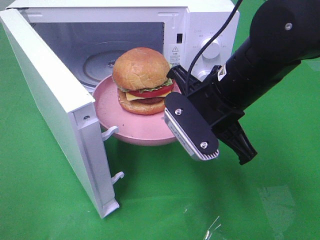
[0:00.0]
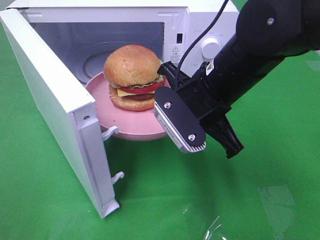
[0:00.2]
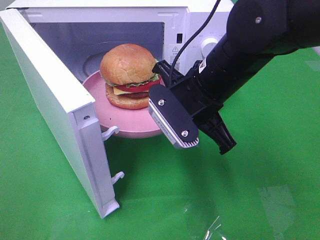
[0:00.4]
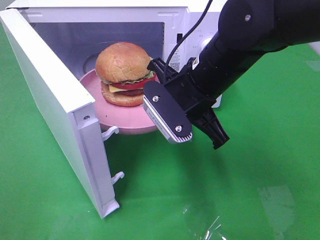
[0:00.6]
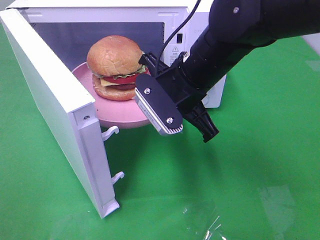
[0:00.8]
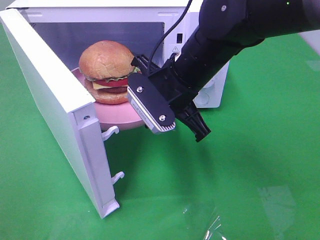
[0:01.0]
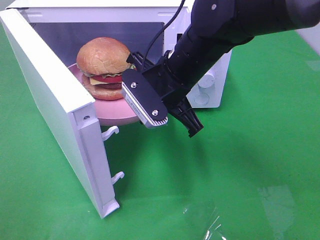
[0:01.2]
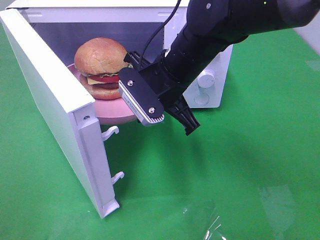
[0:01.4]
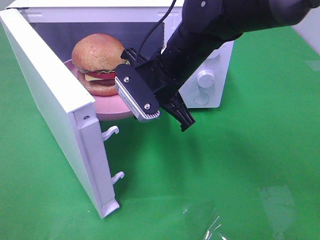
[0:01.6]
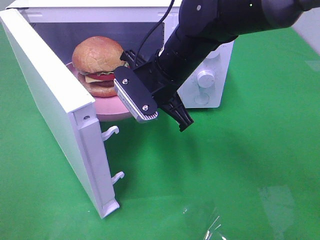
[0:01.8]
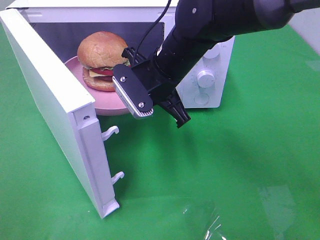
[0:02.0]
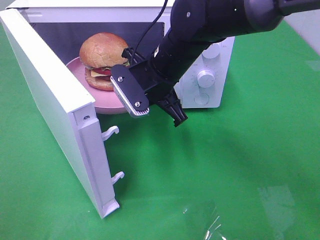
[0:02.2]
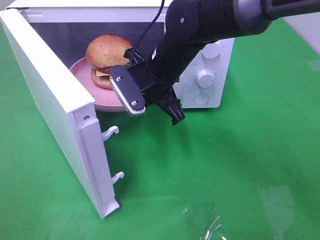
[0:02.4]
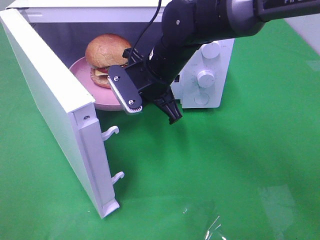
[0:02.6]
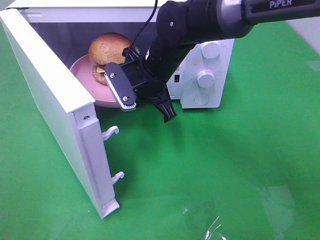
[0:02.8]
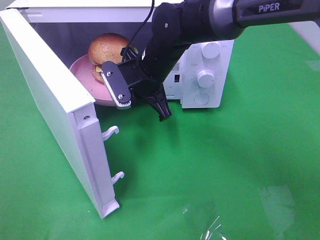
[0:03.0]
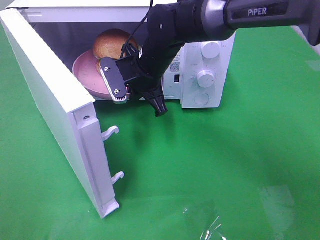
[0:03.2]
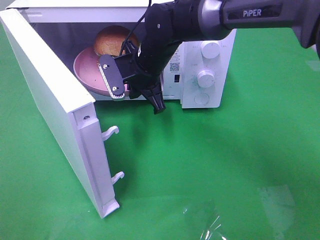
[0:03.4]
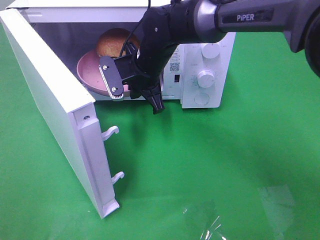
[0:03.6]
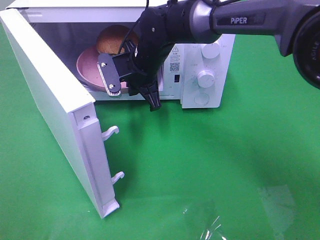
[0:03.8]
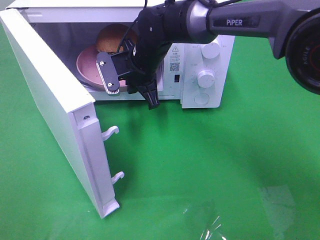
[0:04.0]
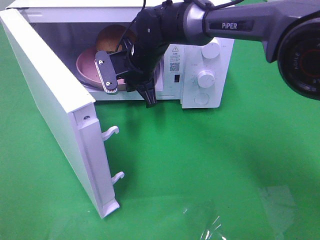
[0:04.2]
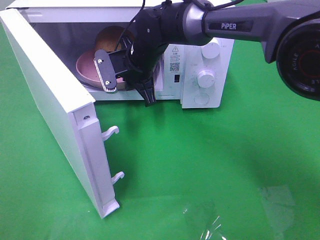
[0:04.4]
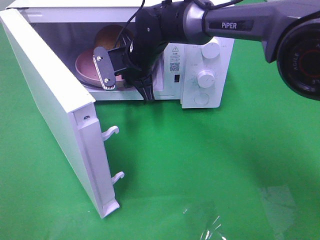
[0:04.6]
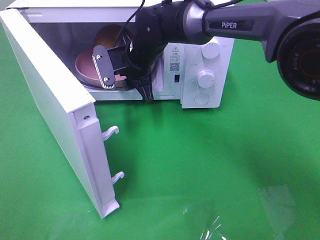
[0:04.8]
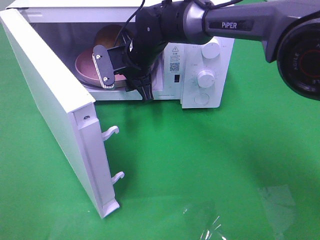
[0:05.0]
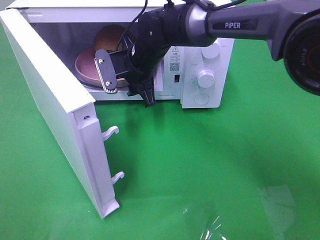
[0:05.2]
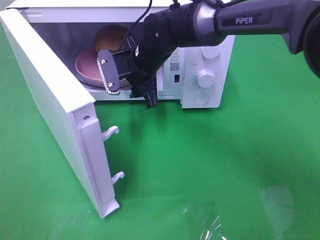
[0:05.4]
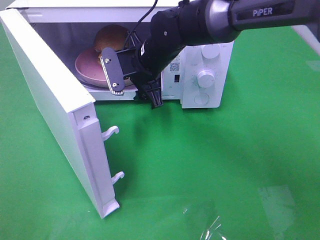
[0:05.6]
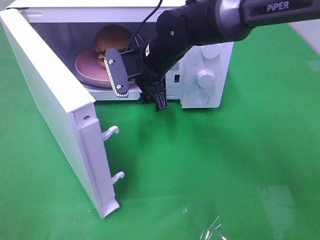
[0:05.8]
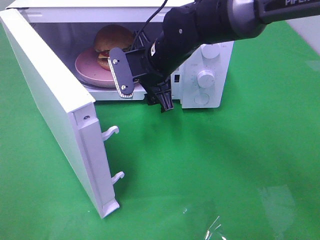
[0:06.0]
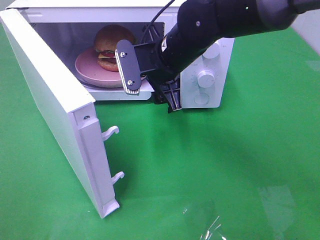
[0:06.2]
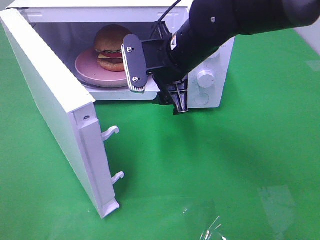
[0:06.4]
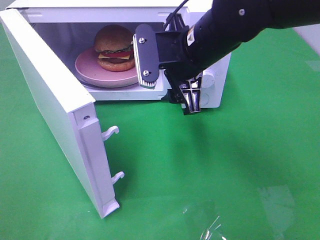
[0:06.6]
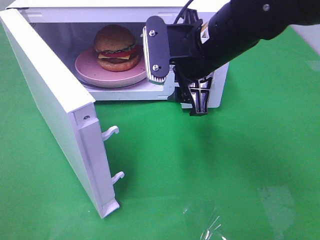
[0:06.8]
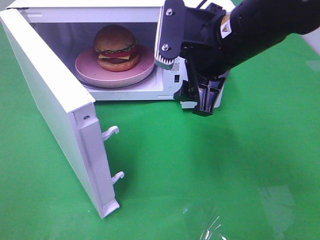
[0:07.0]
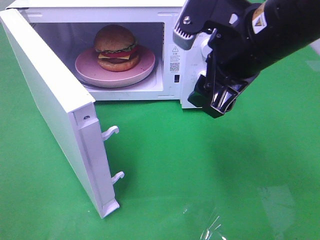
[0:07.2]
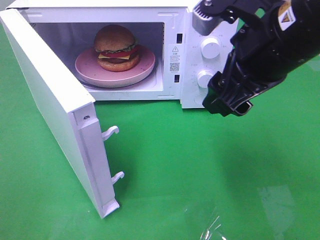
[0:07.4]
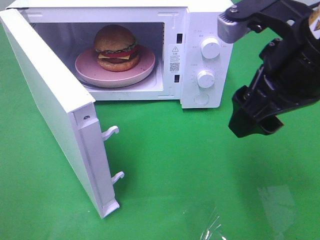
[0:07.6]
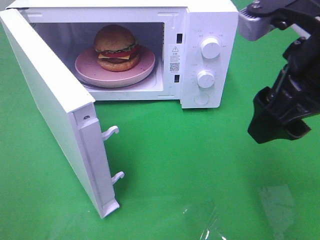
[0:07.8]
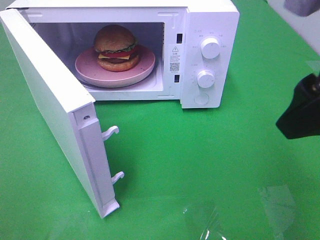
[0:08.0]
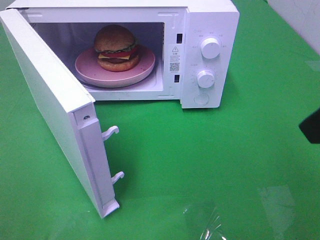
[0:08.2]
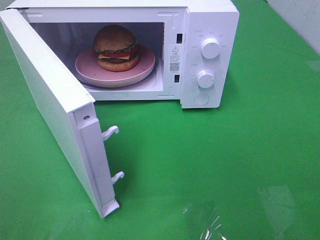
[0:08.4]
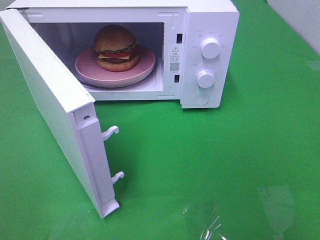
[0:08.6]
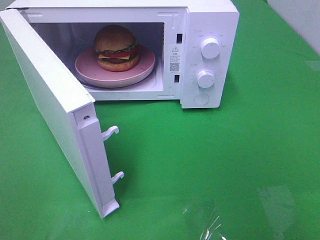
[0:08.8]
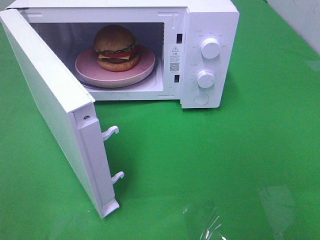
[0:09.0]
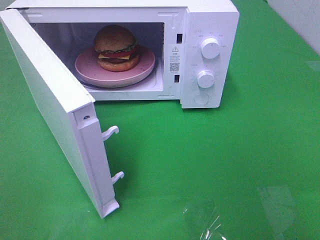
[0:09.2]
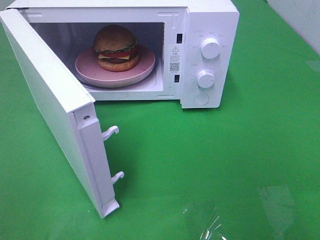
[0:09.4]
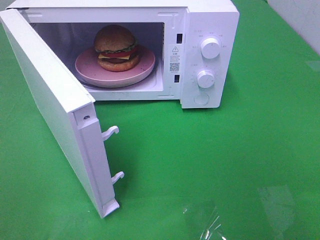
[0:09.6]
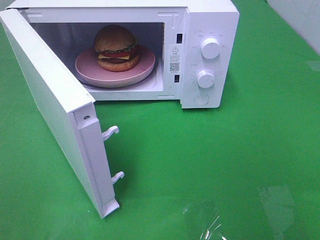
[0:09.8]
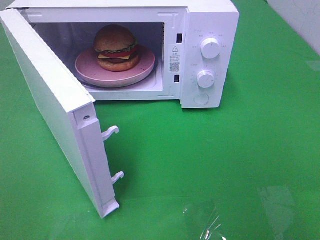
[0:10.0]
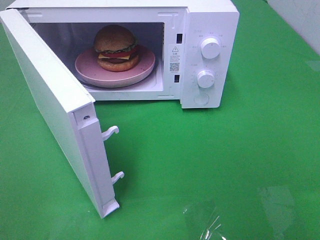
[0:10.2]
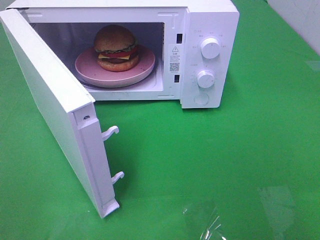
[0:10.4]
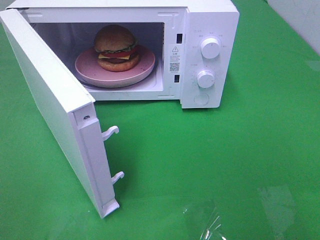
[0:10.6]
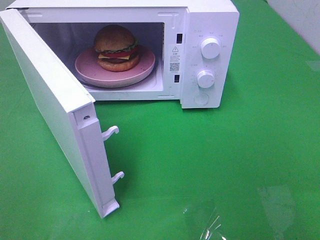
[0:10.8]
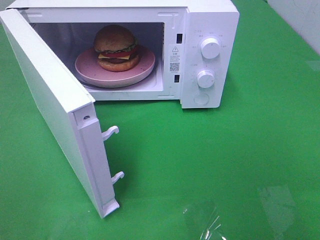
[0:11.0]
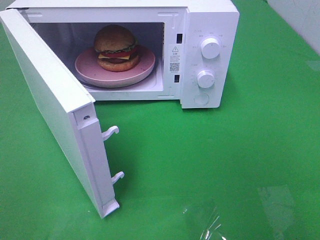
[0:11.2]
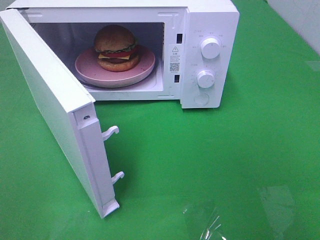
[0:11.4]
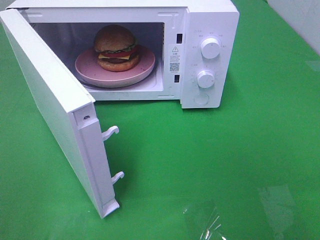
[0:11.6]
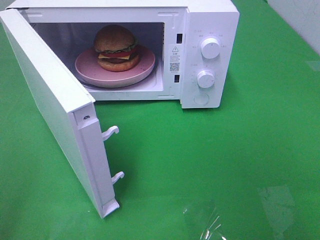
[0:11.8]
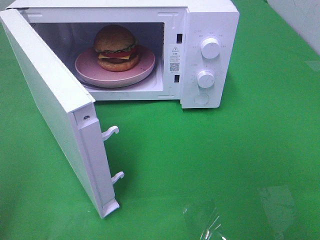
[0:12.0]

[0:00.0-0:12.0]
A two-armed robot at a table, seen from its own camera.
Task of the whole recording: Heat the burger.
Step, 0:00.0 to 0:05.2: Right hand: place the plate in the microwave.
0:00.0 to 0:01.6: The right gripper is displaced forward and to the left by some 10 cm.
0:01.6 to 0:03.0: The right gripper travels forward by some 5 cm.
0:03.0 to 0:04.4: The right gripper changes place by roughly 5 cm.
0:04.4 to 0:06.0: The right gripper travels backward by approximately 5 cm, and opens.
0:06.0 to 0:07.6: The right gripper moves backward, to the right and upward, approximately 25 cm.
0:07.6 to 0:09.0: The right gripper is displaced backward and to the right by some 25 cm.

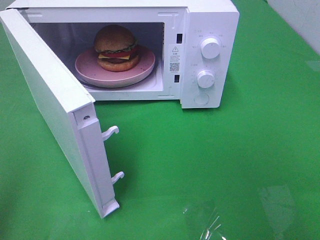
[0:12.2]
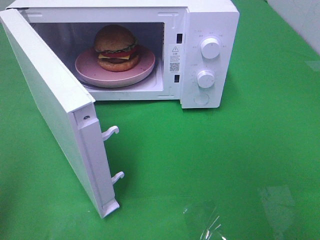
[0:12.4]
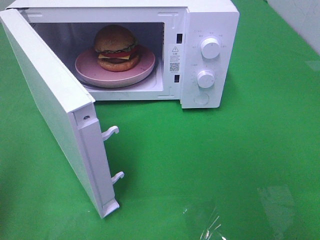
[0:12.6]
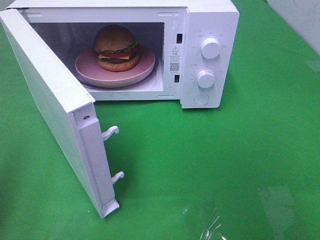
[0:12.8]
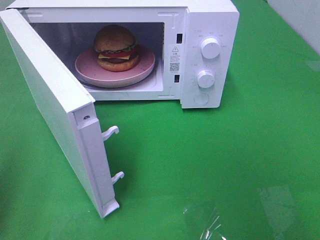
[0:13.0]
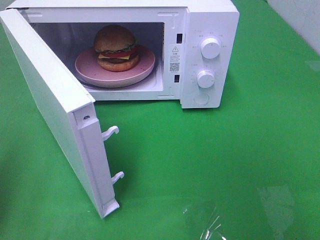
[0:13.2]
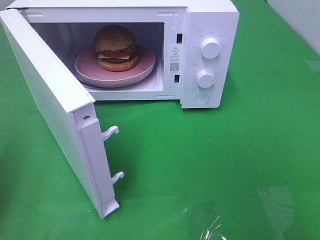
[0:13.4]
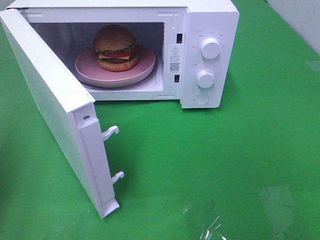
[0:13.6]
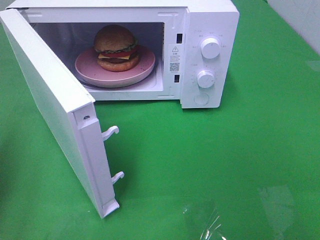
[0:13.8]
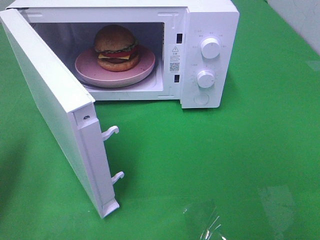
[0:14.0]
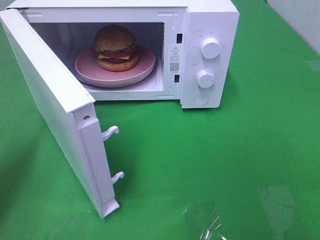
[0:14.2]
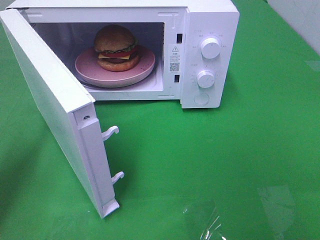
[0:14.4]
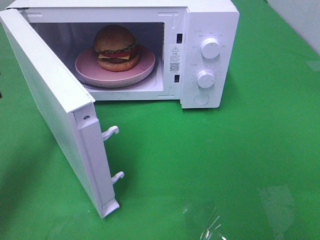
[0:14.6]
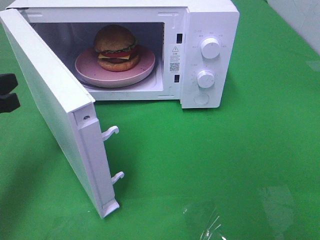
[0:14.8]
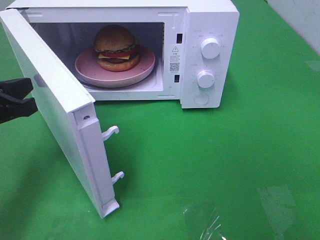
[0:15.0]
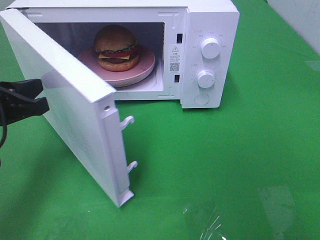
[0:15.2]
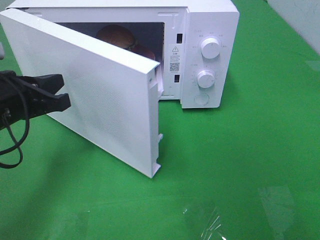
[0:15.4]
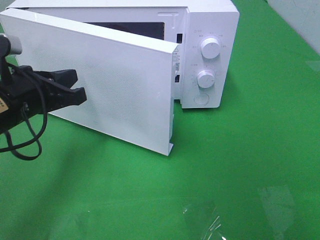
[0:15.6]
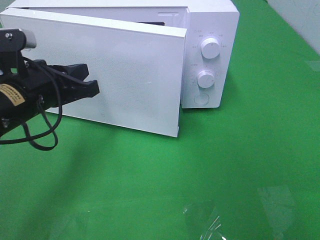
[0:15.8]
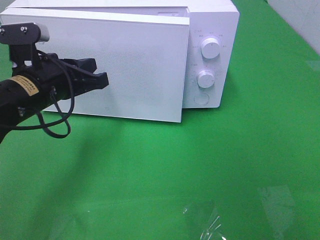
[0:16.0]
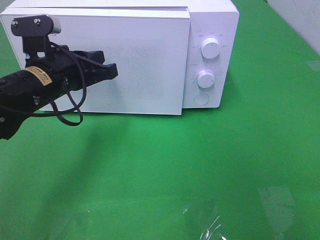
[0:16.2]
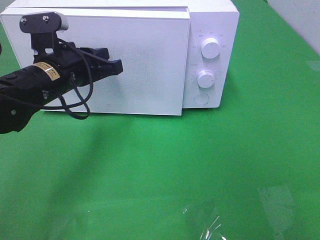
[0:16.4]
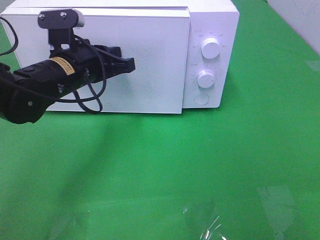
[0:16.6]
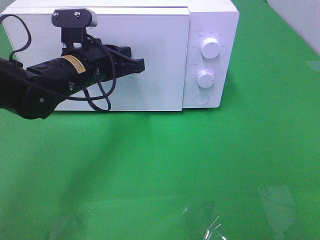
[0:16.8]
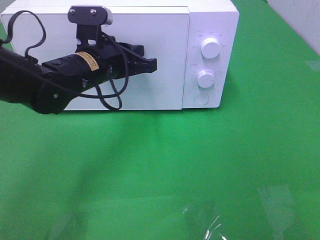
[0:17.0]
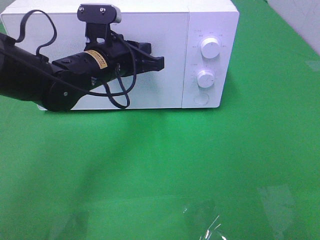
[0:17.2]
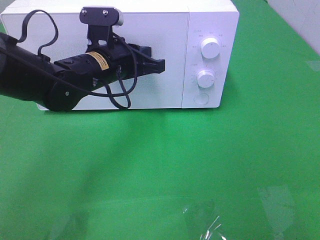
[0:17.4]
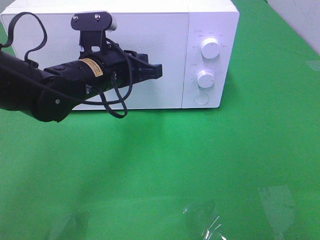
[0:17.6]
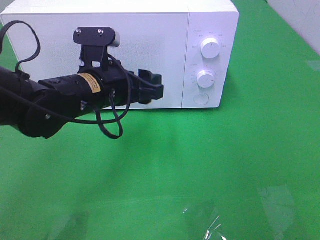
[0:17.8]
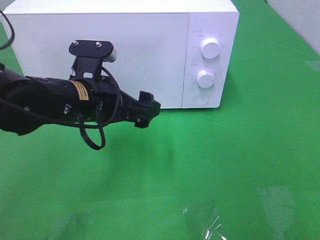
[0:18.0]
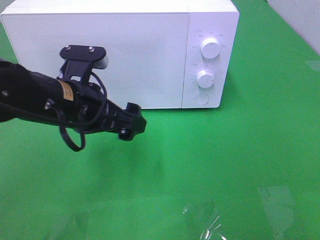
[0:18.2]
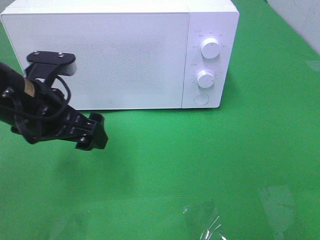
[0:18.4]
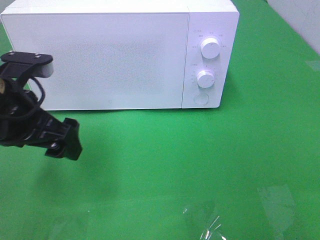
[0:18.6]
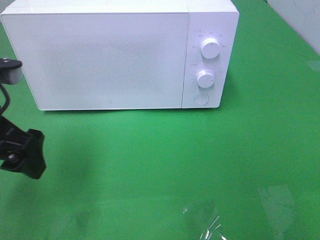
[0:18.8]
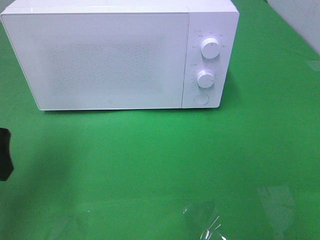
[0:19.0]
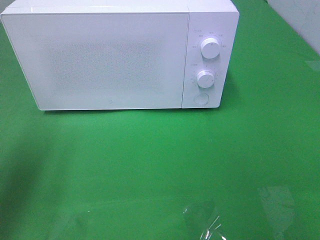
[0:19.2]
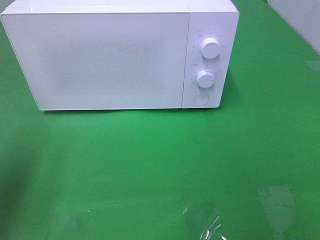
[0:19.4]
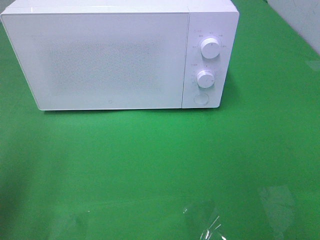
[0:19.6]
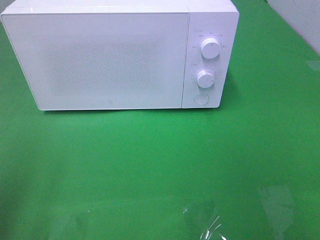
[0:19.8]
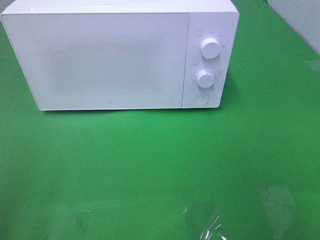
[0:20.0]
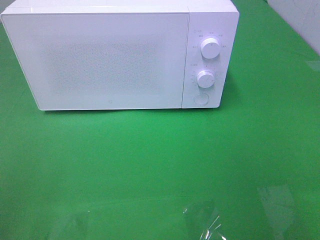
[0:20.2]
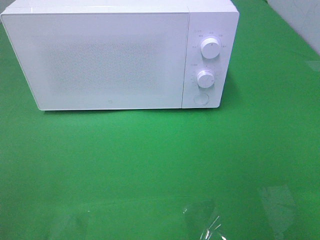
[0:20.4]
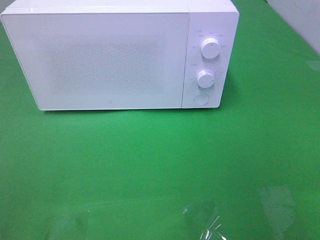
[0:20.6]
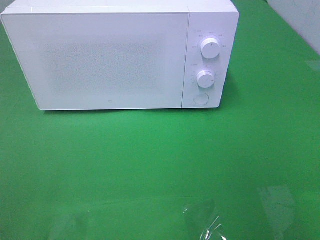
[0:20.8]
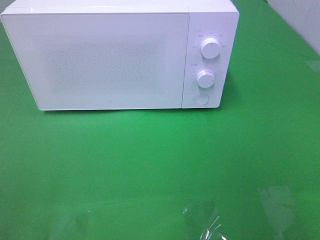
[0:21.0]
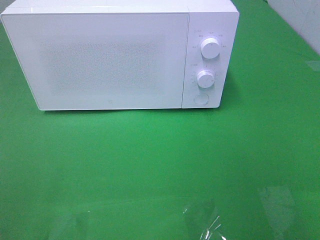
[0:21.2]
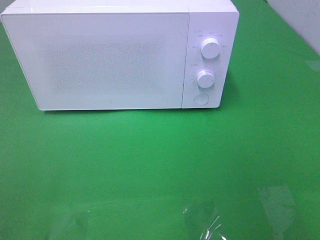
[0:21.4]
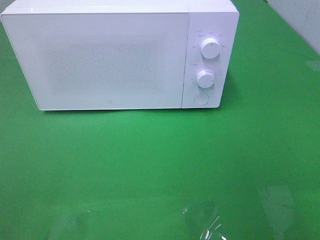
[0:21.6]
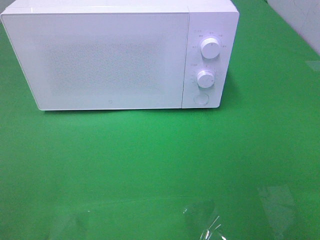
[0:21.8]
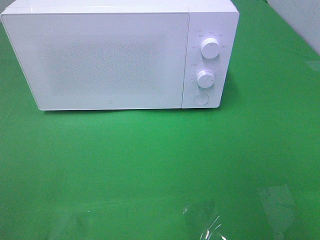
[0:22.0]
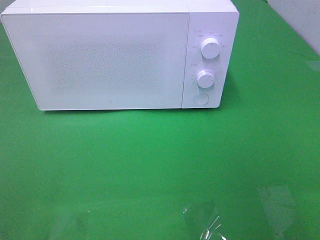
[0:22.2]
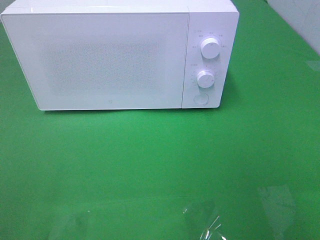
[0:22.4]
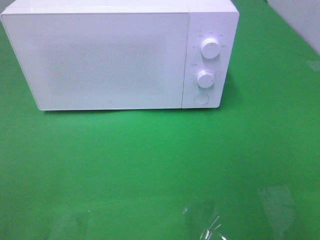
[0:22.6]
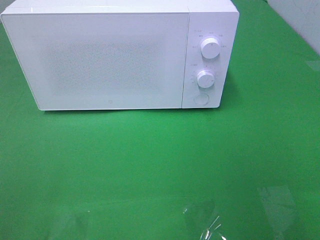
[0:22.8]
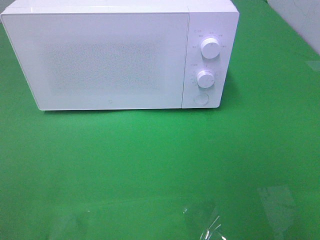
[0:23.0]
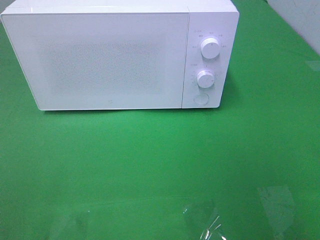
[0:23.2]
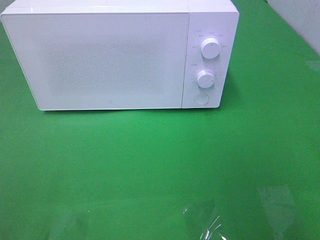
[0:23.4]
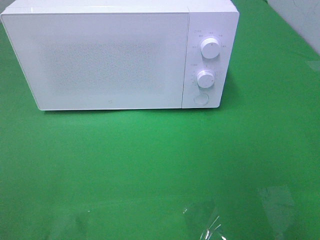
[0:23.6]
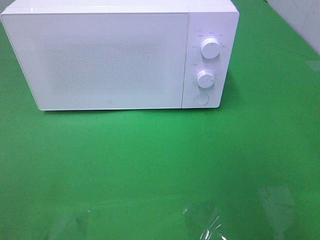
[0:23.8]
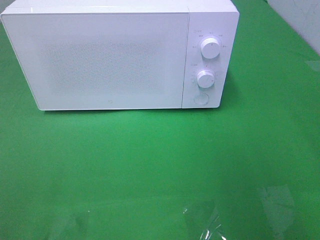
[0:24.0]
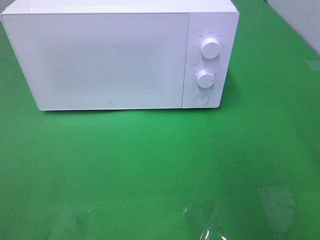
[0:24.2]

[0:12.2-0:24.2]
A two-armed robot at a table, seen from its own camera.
Task of the whole recording: Heat the burger.
Step, 0:12.2 to 0:18.0: Left hand: close the microwave door.
0:13.8 to 0:15.2: The left gripper travels to the right and downward by about 10 cm.
0:15.2 to 0:16.6: The left gripper shifts about 15 cm to the right and forward.
0:16.6 to 0:18.2: The left gripper heads backward, covering about 10 cm, and opens its fingers.
0:18.2 to 0:19.8: The left gripper travels to the left, backward and upward by roughly 25 cm.
0:21.2 to 0:22.6: Neither gripper changes place.
